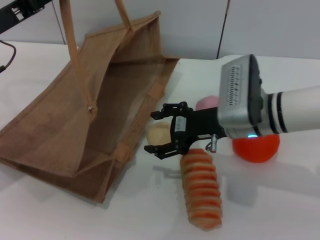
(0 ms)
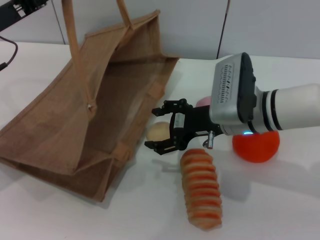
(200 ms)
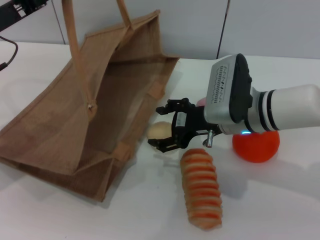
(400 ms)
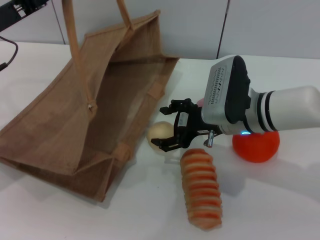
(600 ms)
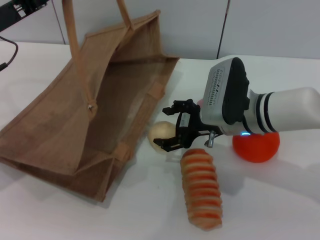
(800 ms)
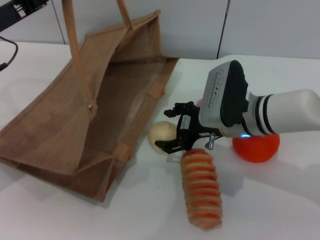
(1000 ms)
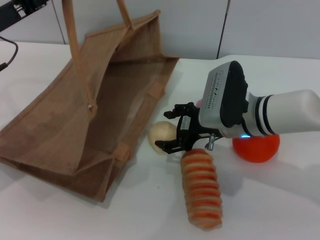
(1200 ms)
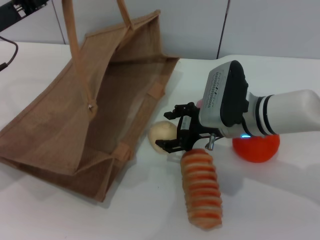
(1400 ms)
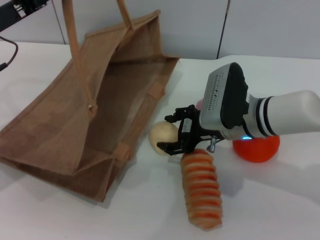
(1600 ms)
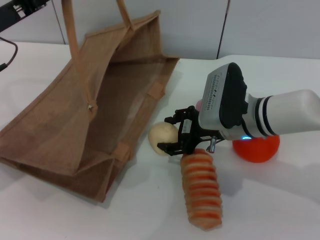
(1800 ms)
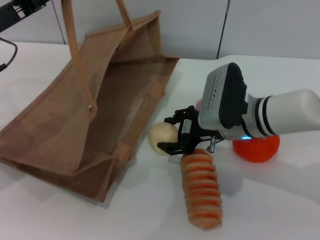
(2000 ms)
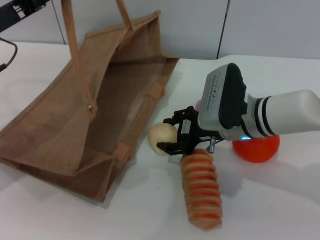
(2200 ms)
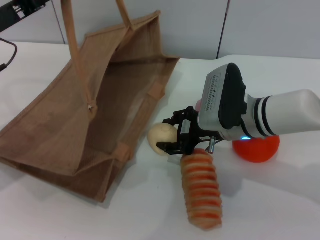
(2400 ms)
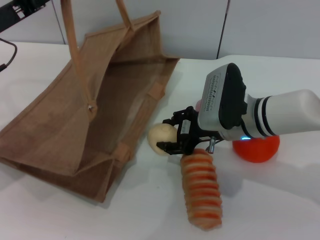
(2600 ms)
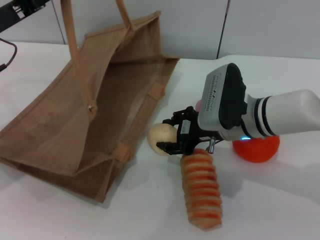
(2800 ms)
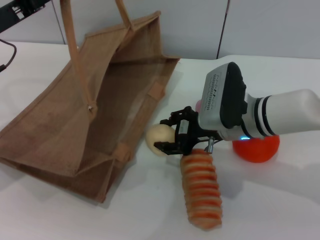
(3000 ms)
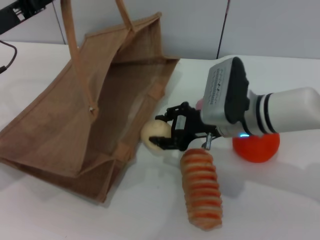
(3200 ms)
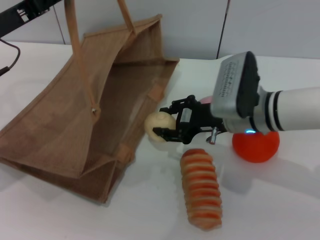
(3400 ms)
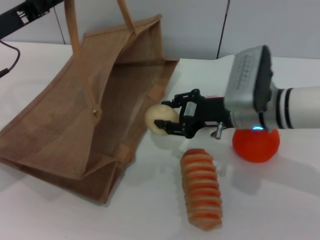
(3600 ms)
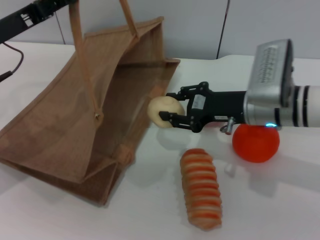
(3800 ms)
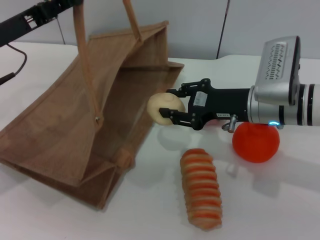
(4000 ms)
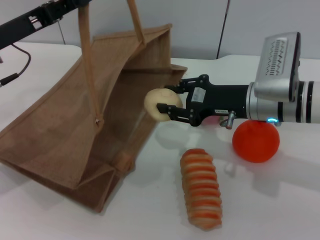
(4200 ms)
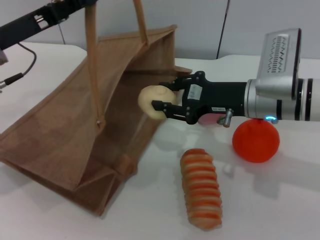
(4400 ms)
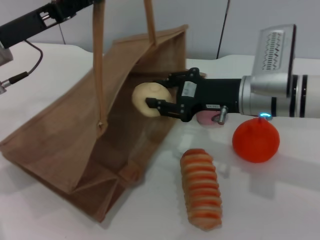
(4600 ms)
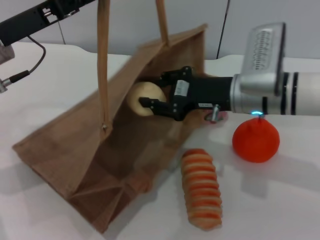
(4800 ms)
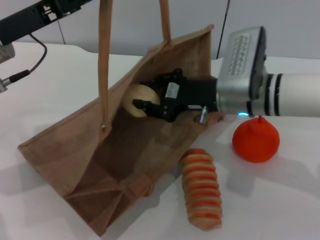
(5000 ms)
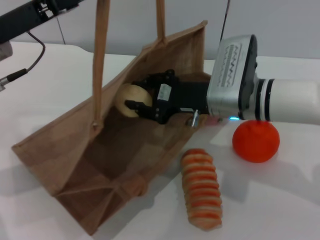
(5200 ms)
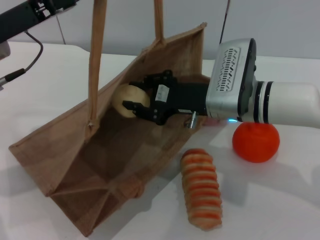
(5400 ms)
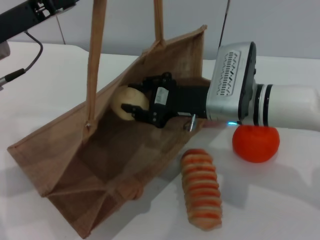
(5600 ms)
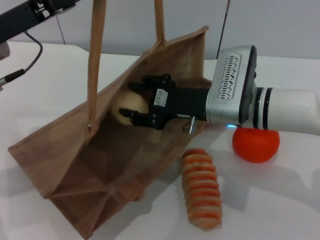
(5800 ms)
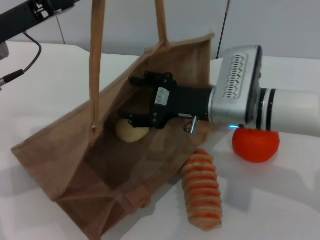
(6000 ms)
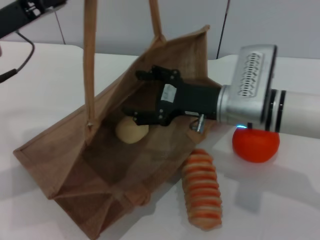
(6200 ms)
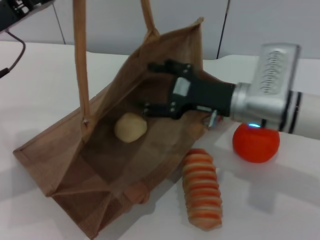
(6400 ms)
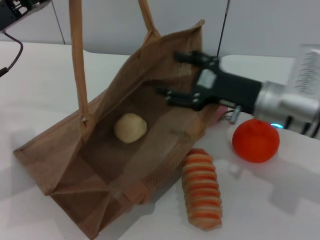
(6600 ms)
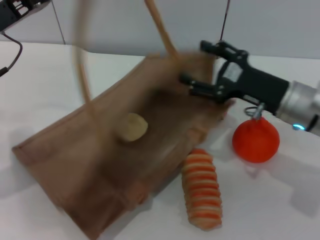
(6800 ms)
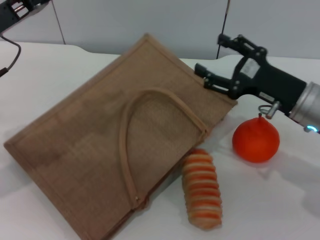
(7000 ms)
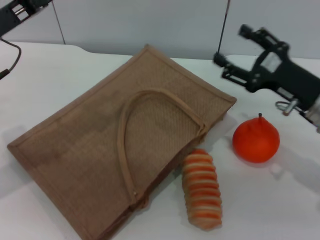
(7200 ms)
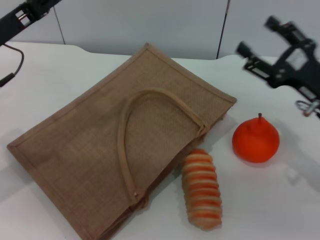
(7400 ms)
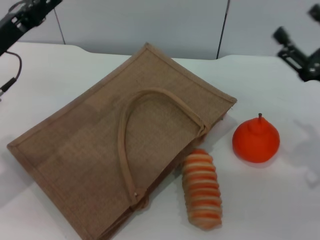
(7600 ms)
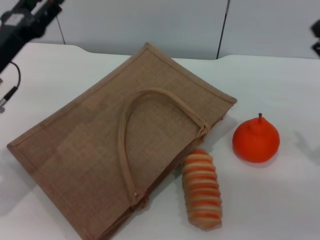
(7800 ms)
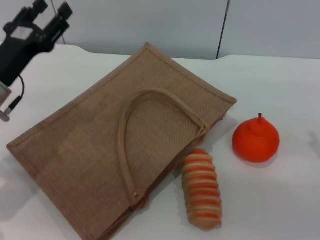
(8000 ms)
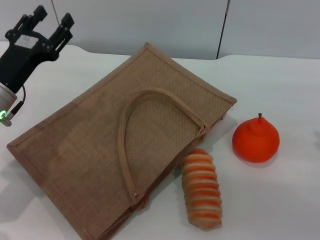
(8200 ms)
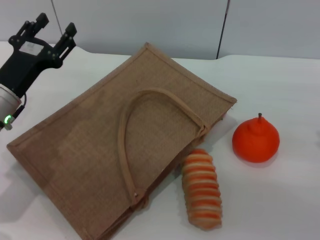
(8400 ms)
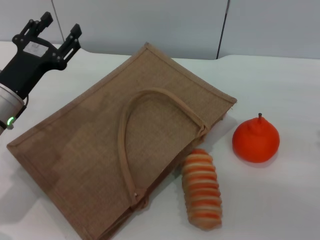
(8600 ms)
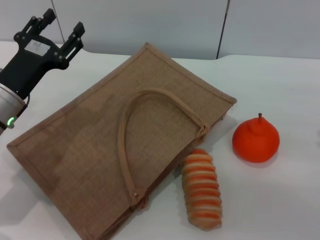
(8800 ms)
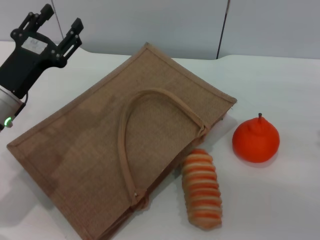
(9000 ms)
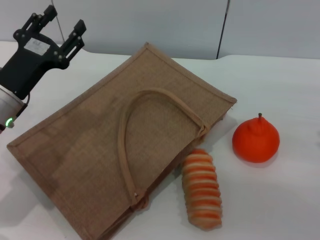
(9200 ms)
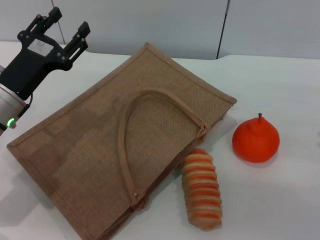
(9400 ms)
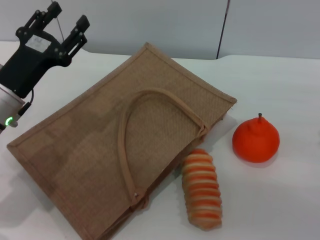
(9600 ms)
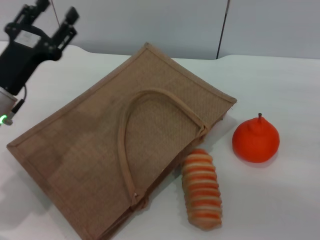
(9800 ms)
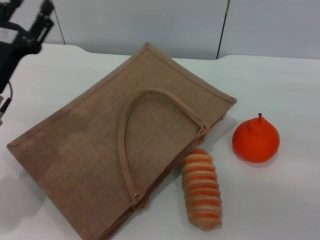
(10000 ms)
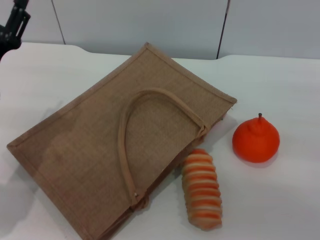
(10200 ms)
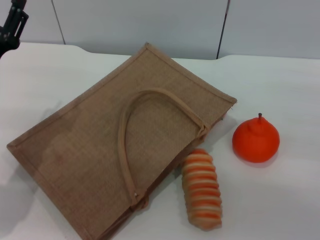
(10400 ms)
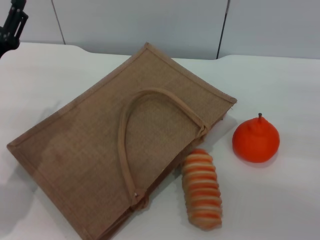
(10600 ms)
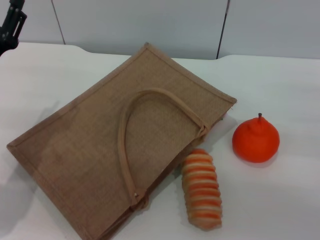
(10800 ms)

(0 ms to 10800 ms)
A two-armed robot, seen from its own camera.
Task of the whole recording: pick up the egg yolk pastry from the table and place it in the brown handbag.
Step, 0 ms - 3600 ms: Pick up the egg yolk pastry with the right gripper.
Step, 3800 ms - 6400 ms: Place the egg yolk pastry into the woven bag with the right gripper.
Step, 6800 ms - 9000 ms: Lower the woven bag with the left gripper to close it.
0 ms - 1600 ms: There are only small adjustments of the grippers.
1600 ms - 3000 ms: The right gripper closes its fingers.
4600 ms - 6200 ms: The right gripper opens up.
6200 ms - 7800 ms: The right gripper heads to the right, covering roughly 20 cm. The left gripper is displaced downward by roughly 5 cm, and opens its fingers.

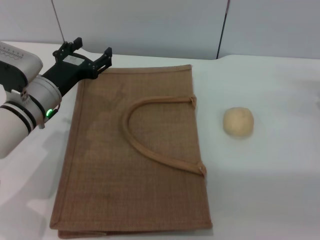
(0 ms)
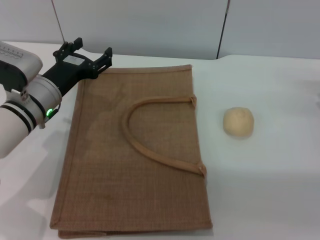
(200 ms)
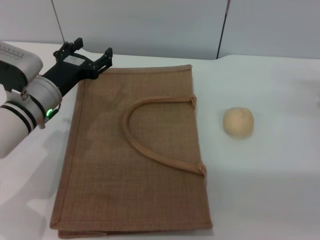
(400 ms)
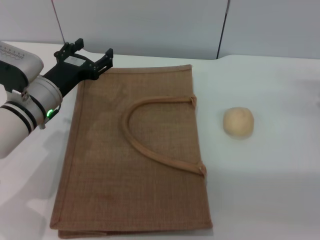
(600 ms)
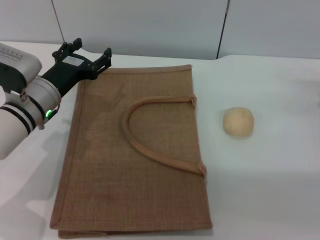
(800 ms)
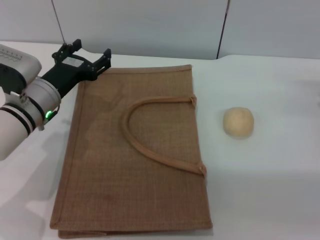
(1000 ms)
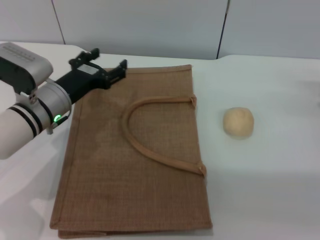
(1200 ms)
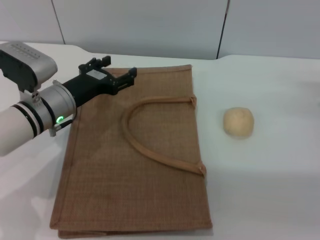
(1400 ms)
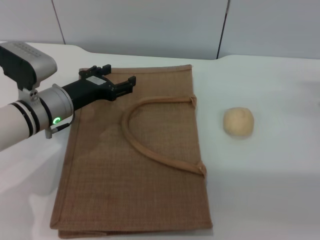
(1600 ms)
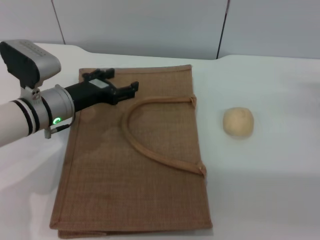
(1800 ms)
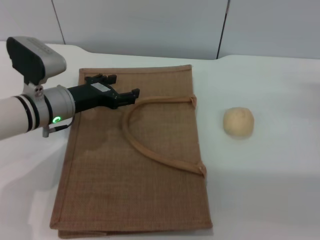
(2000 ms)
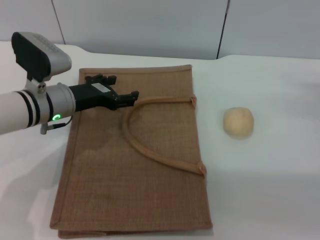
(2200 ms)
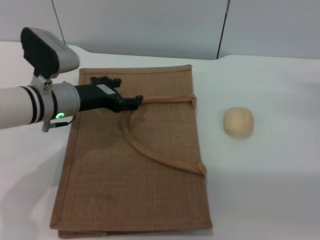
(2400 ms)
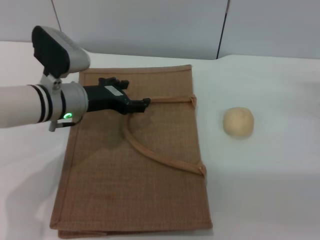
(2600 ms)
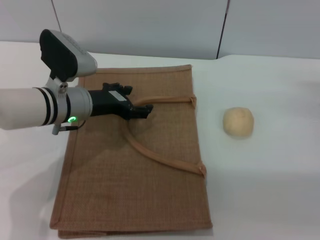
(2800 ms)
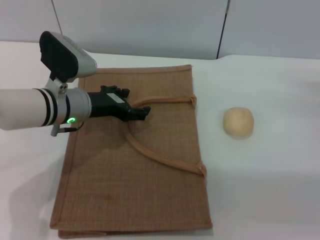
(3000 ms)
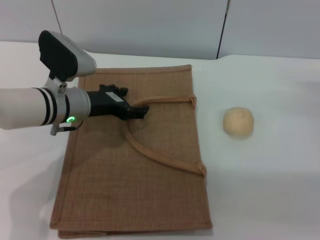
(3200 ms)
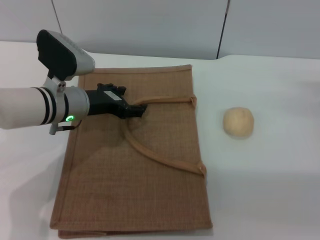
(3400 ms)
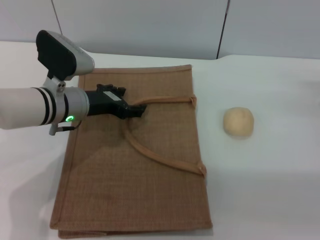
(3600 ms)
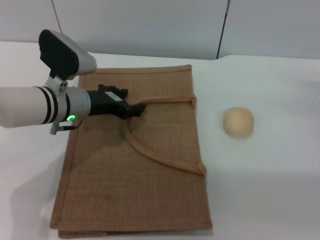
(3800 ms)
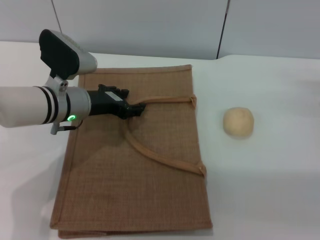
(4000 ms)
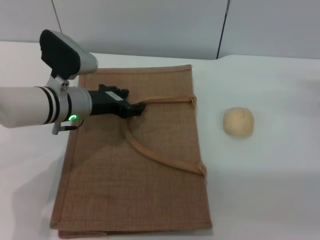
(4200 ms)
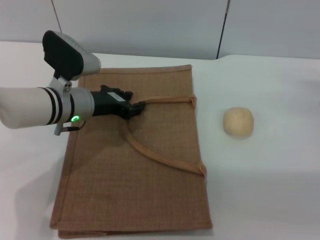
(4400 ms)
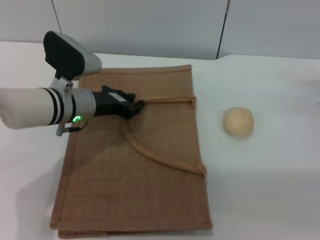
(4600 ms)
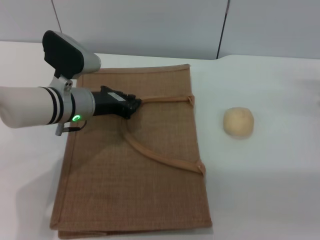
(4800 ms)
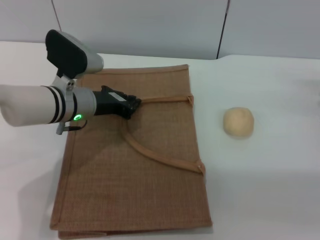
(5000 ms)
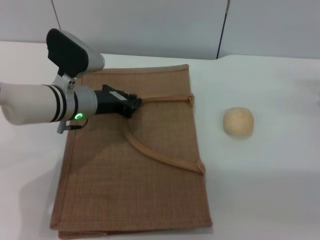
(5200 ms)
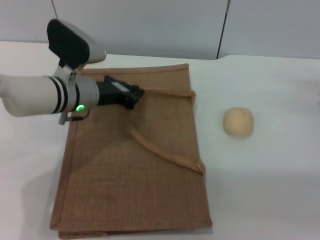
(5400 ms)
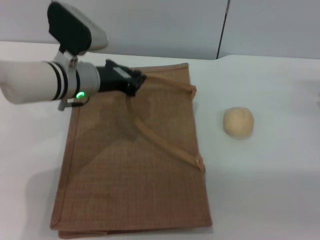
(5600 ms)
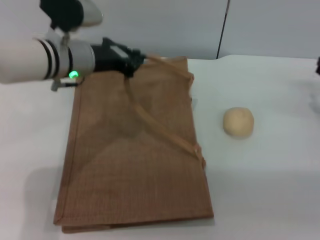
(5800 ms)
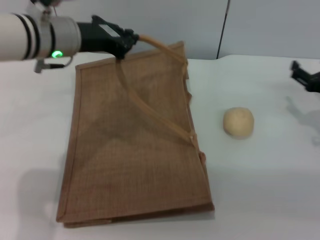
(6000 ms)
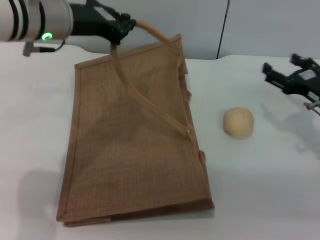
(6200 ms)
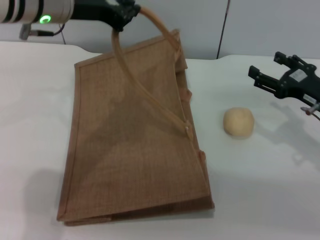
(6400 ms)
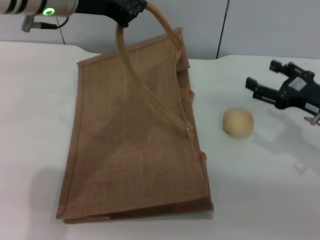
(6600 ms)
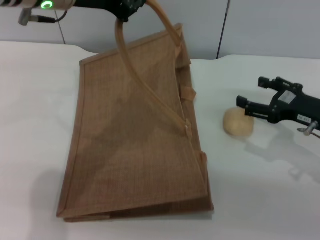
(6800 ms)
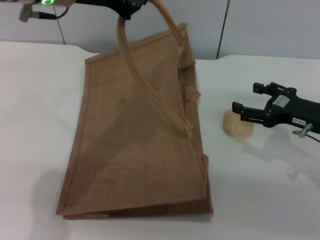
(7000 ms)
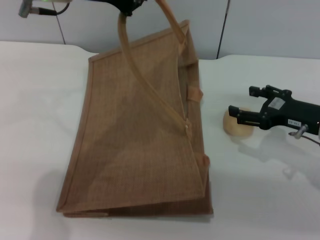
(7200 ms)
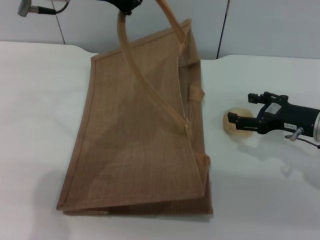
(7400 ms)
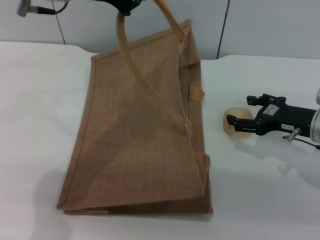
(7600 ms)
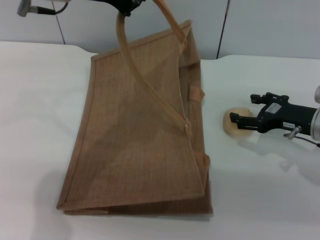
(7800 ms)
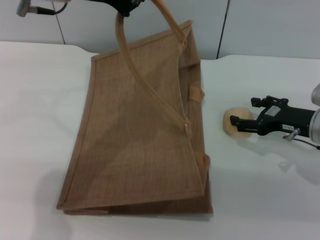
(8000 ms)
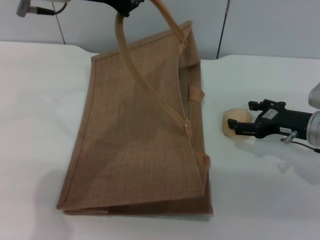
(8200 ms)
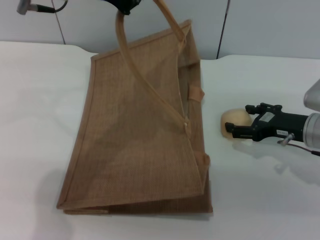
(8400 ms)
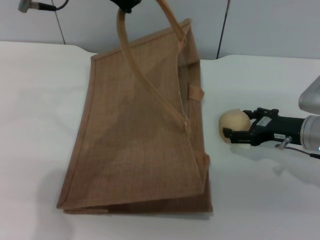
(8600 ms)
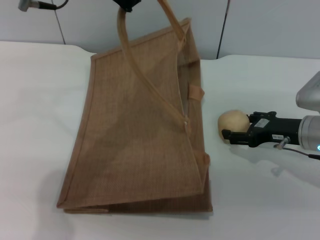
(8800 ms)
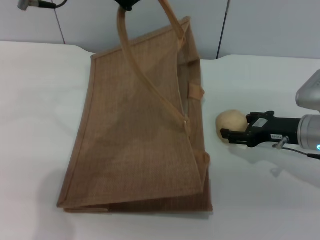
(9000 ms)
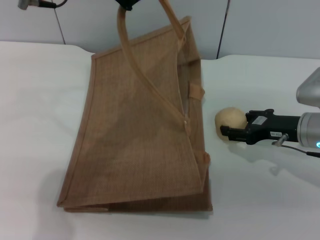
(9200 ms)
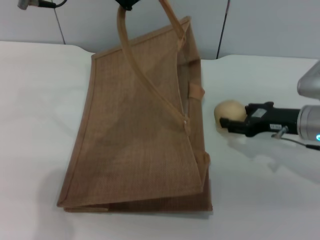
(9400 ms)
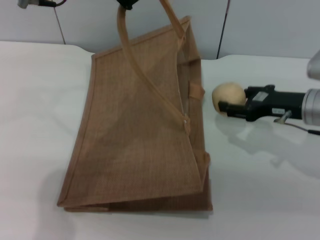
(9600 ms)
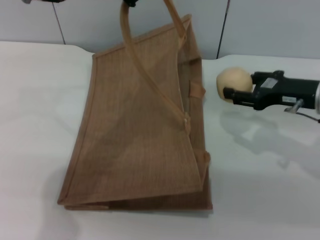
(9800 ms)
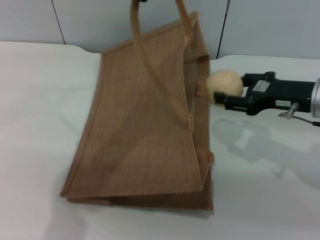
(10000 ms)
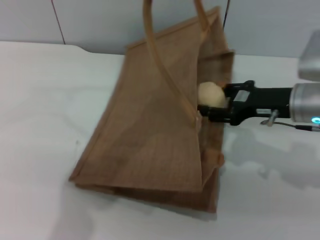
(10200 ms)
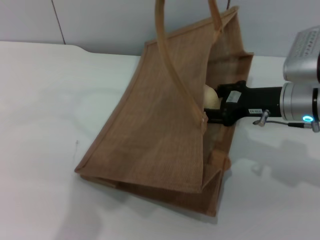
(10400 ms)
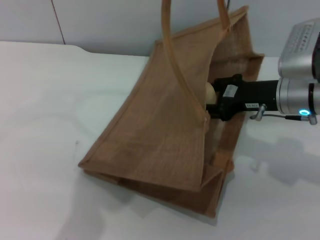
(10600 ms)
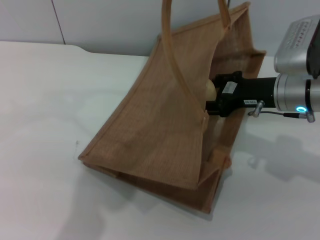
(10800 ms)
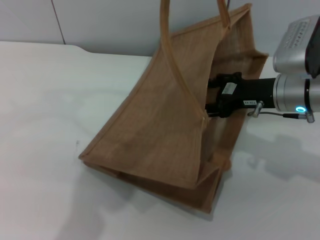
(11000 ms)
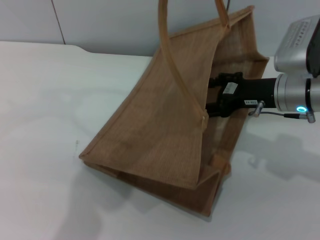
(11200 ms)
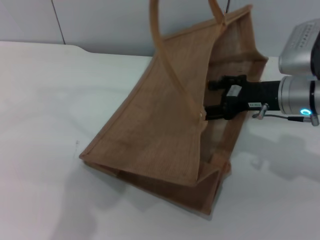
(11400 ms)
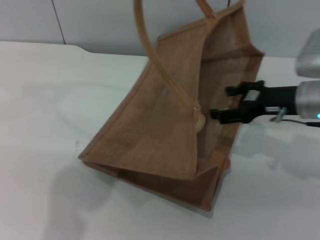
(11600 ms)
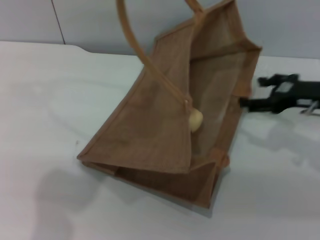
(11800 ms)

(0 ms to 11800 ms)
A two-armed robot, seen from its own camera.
Task of the whole recording: pick up the egg yolk pastry from the table and place it in the brown handbag.
Step, 0 ms - 5800 ms: Lift the woven bag with the left gripper to open it.
Step, 6000 ms - 9600 ms: Pick up the egg yolk pastry with the right gripper.
Step, 10000 ms - 11400 ms: Place the egg yolk pastry into the woven bag with the right gripper.
0 ms - 1400 ms: The grippers make only small movements.
3000 ms - 4400 ms: Neither gripper changes place.
4400 ms - 6000 ms: The left gripper shifts about 10 cm upward, and closes up.
6000 ms - 7400 ms: The left gripper travels upward by roughly 10 cm. The right gripper shifts by some 5 cm.
7400 ms - 8800 ms: The grippers move only a little.
8800 ms - 10400 ms: The left gripper is displaced to the right by some 5 cm, while the right gripper travels upward by approximately 5 cm, and closes up.
10400 ms - 11800 ms: The right gripper moves to the right, some 5 cm, and opens, while the left gripper is displaced to the left by roughly 5 cm.
